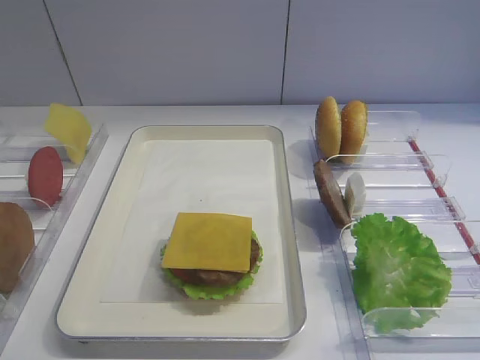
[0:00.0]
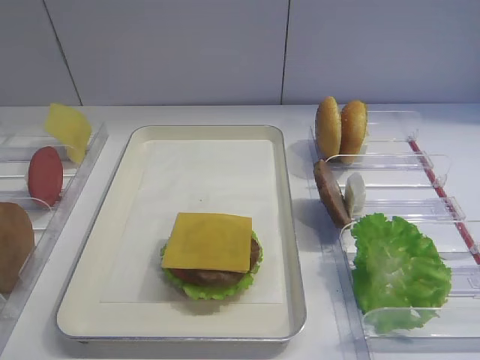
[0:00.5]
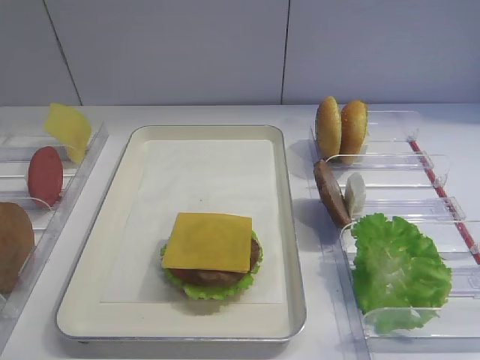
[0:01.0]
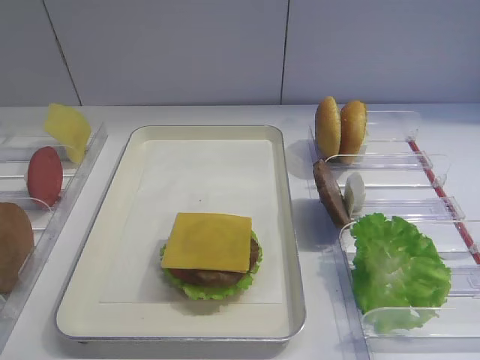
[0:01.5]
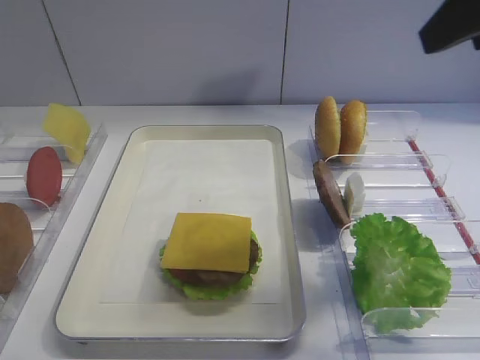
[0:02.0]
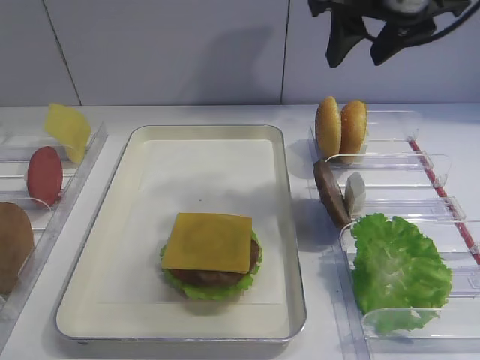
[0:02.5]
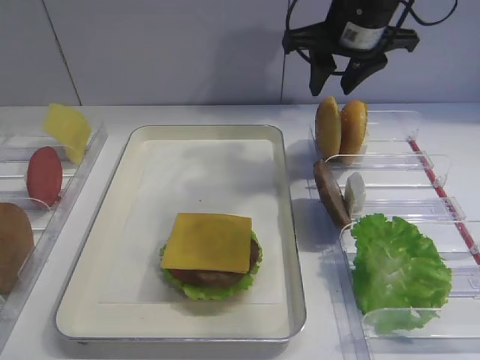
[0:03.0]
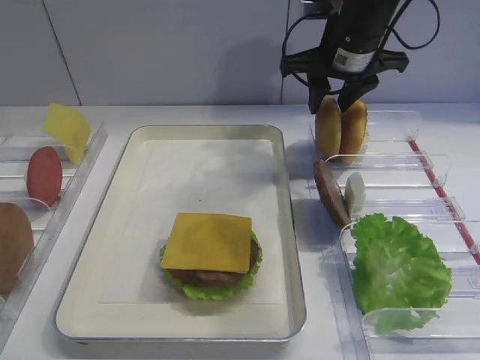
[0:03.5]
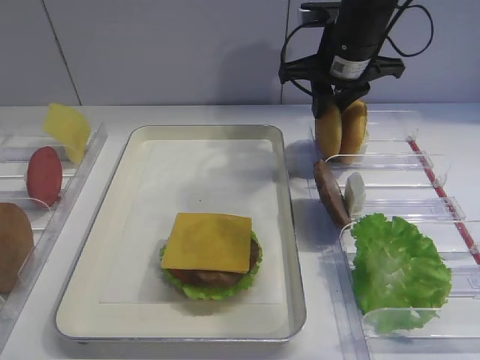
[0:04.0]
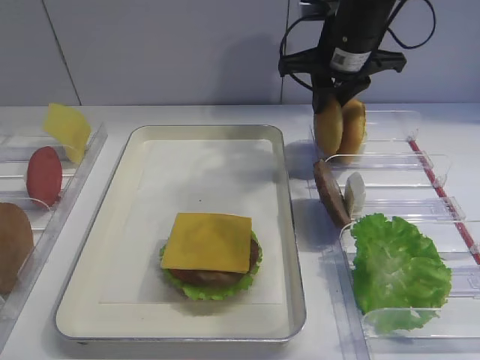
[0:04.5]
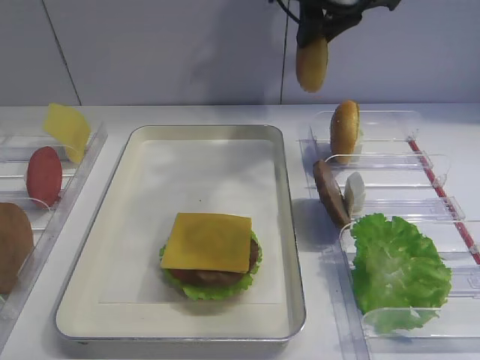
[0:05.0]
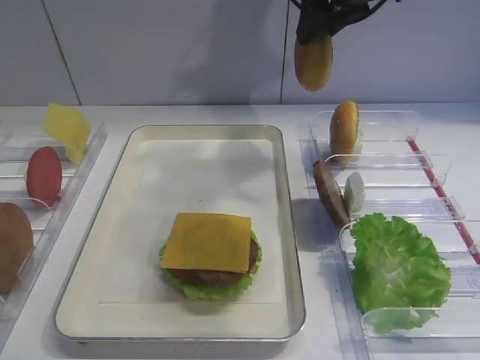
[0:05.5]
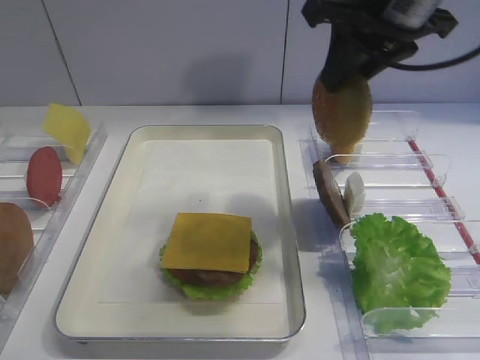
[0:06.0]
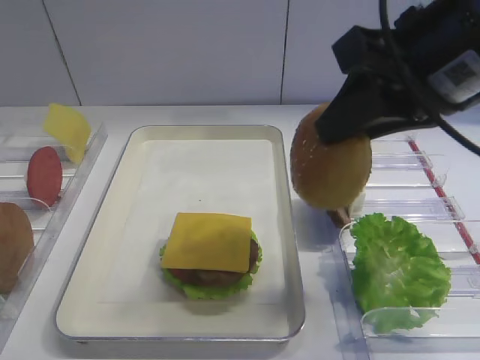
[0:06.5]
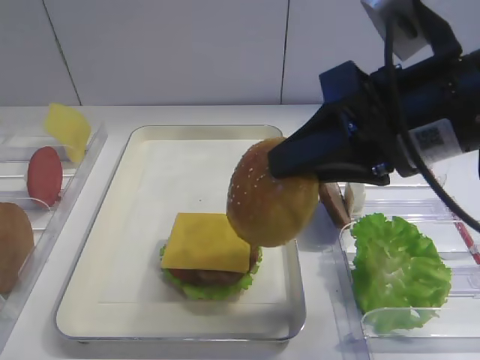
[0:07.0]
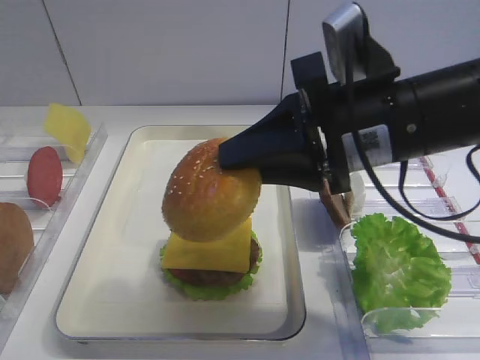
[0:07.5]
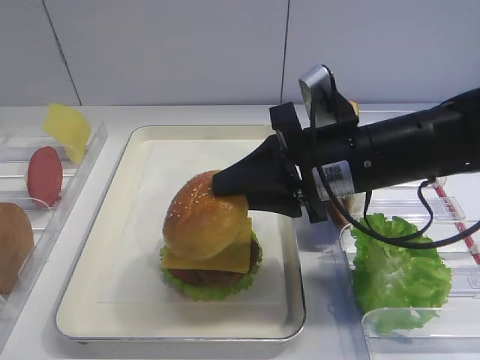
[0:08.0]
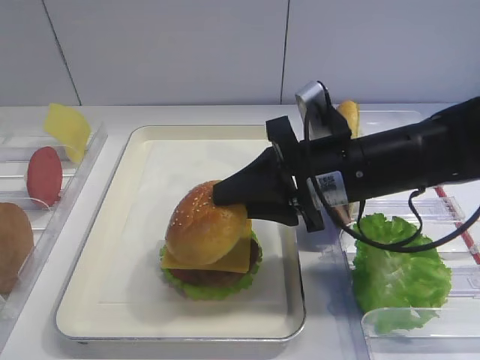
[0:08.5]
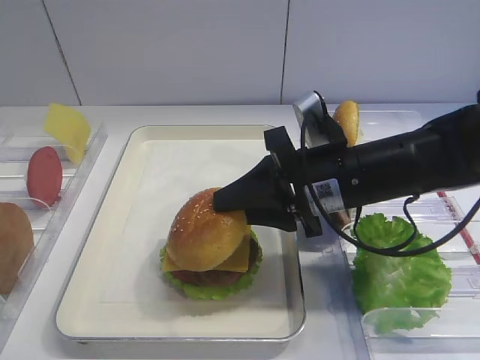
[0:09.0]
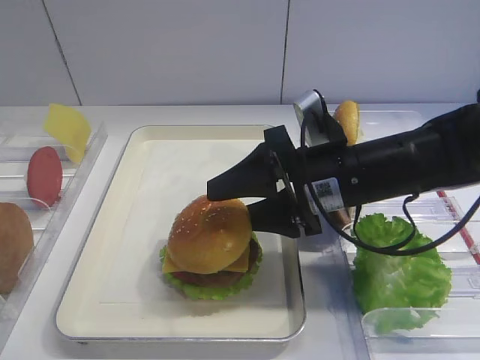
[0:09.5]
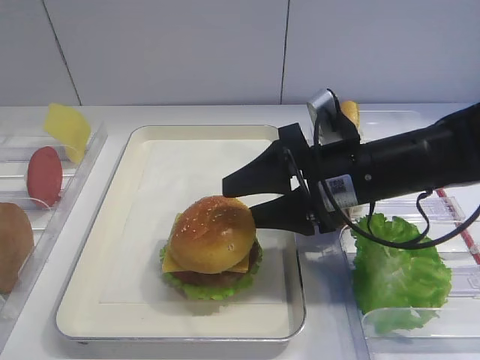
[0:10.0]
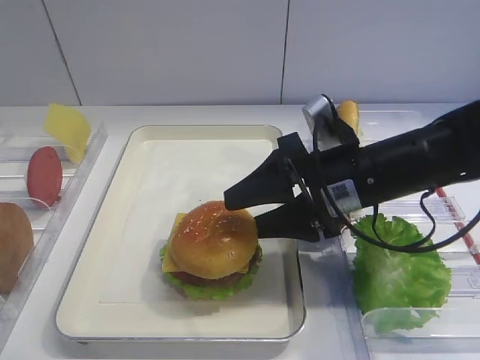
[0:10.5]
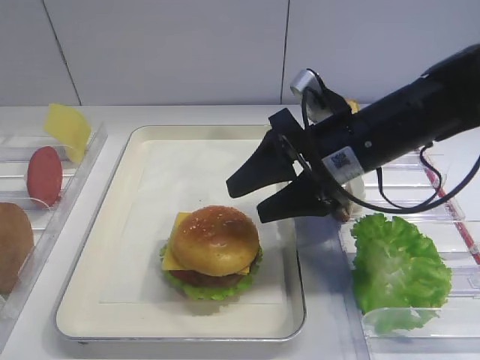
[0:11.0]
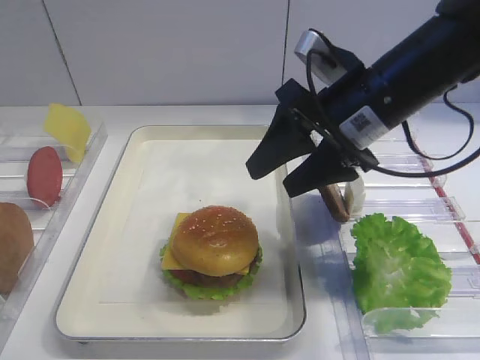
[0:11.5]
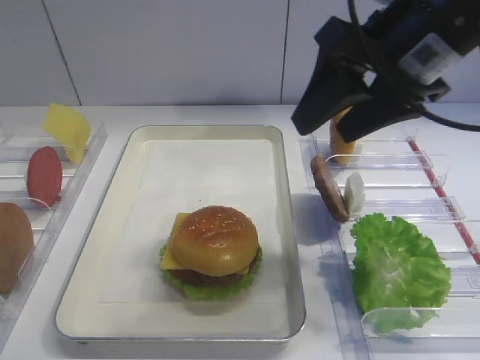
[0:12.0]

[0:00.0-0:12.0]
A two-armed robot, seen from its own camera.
Step, 0:00.0 to 0:04.5: Pick up the hamburger lid with the right gripper.
Step, 0:05.0 to 0:11.0: Place the hamburger lid on the cheese slice with the right gripper.
0:02.0 to 0:04.0: The right gripper travels forward and downward by approximately 25 cm, and closes up.
0:04.0 to 0:06.0: The right gripper heads backward and upward, covering approximately 15 cm.
0:06.0 to 0:08.0: The right gripper goes roughly 15 cm downward.
0:08.0 to 0:10.0: The right gripper opens its fingers.
0:10.0 to 0:12.0: The right gripper goes some 15 cm upward.

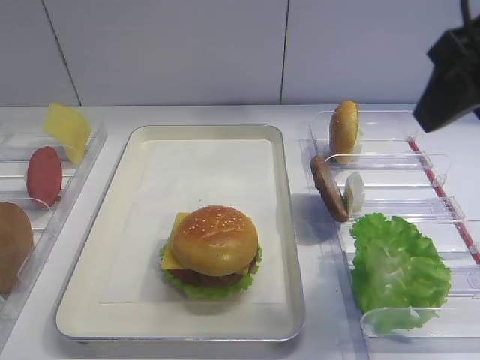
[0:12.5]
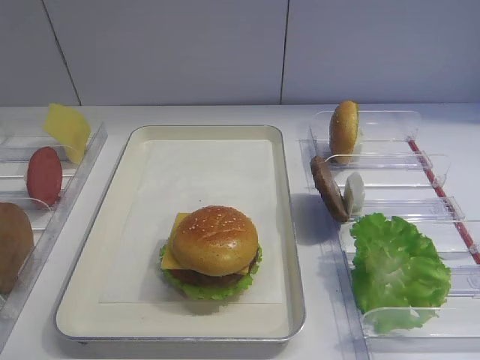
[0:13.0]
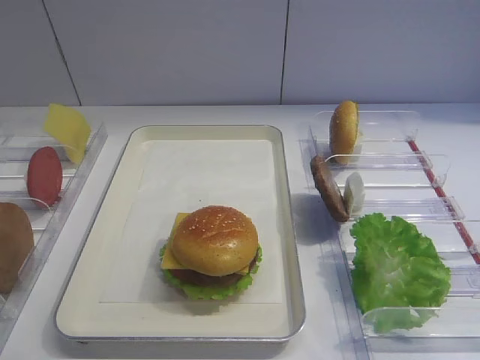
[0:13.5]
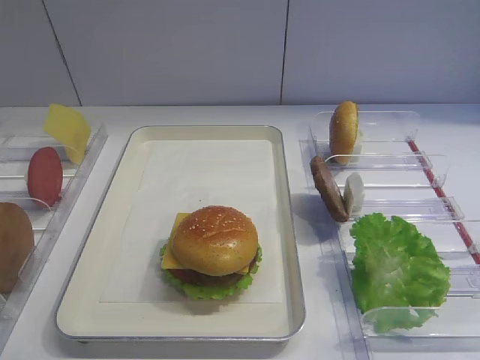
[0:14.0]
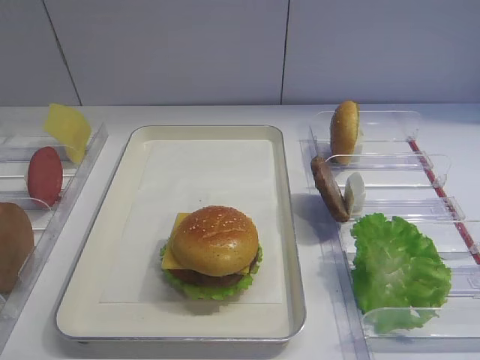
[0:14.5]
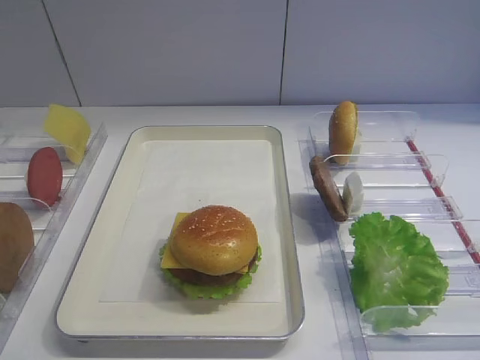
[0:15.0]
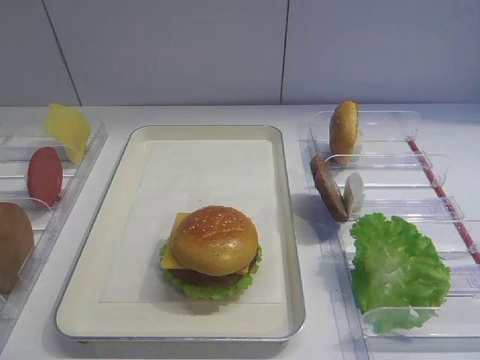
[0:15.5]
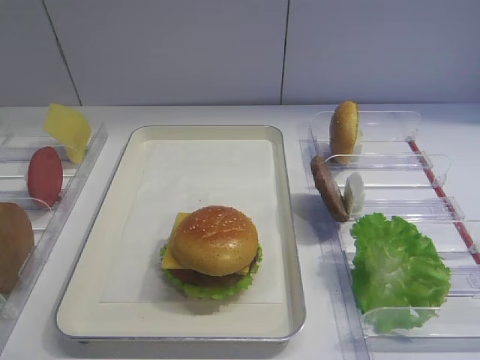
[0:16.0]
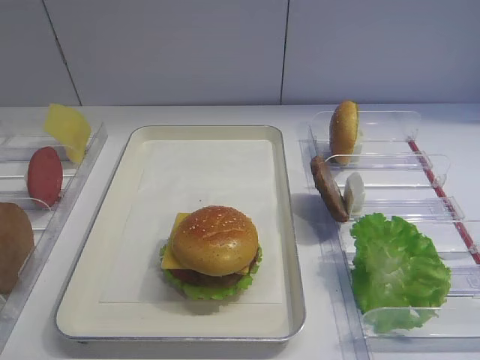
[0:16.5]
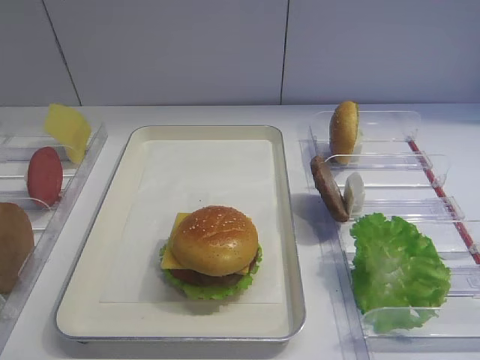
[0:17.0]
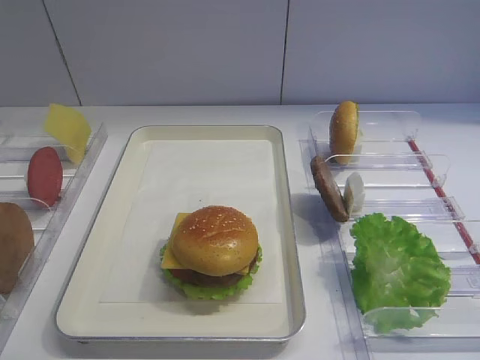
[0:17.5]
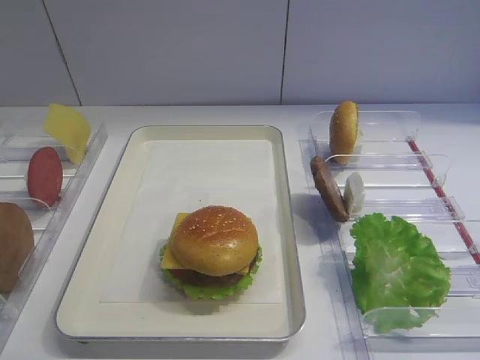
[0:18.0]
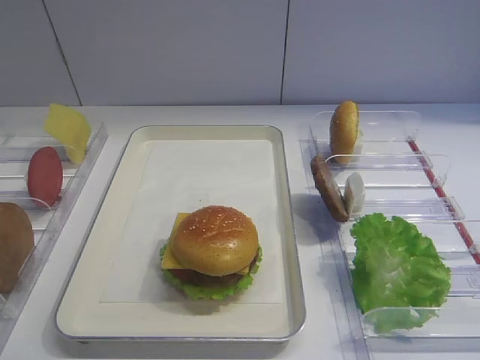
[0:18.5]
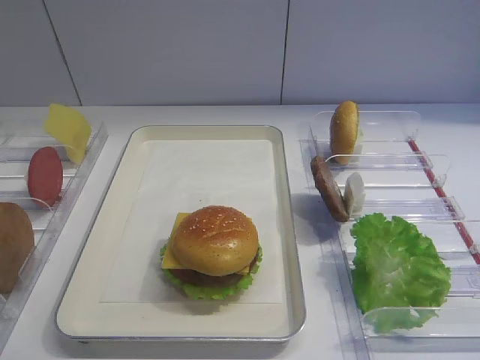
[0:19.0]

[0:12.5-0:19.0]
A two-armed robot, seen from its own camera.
0:12.5 to 0:14.5: The right gripper moves backward and downward, approximately 25 cm.

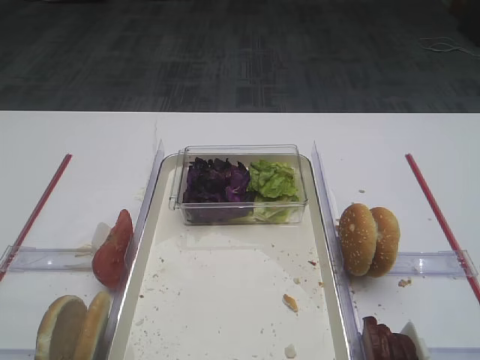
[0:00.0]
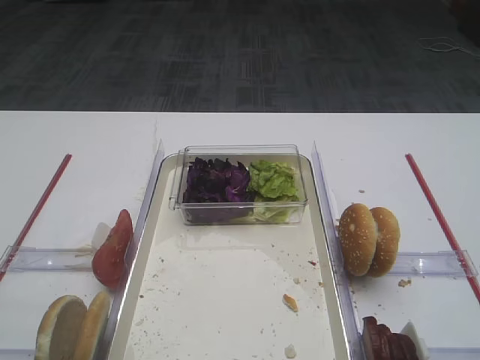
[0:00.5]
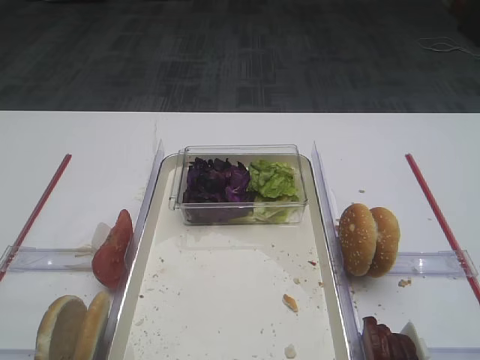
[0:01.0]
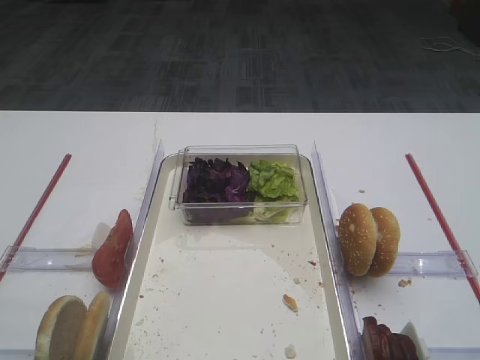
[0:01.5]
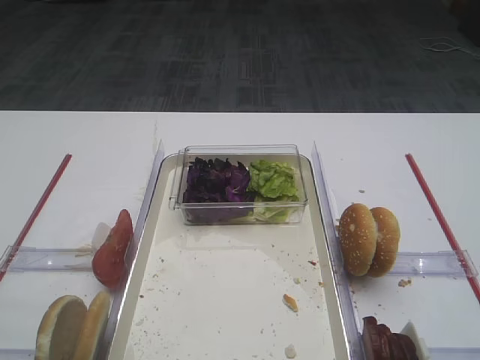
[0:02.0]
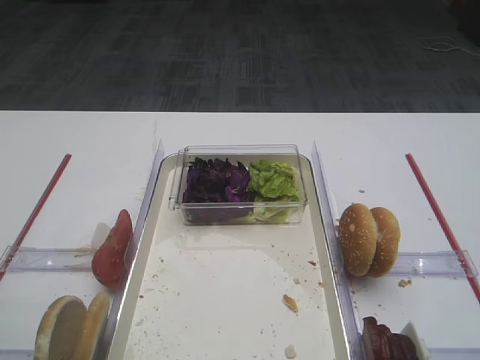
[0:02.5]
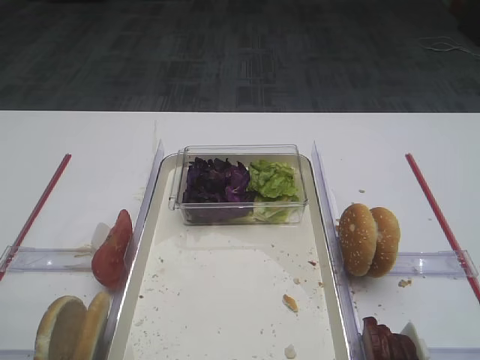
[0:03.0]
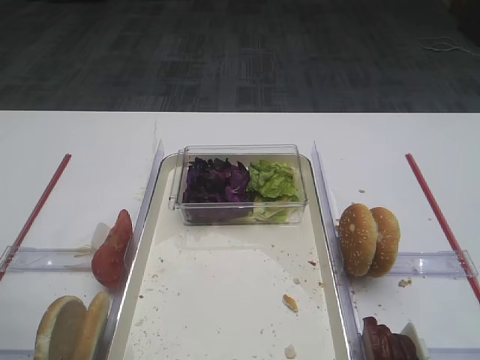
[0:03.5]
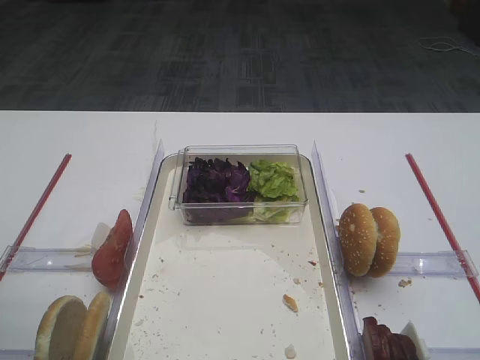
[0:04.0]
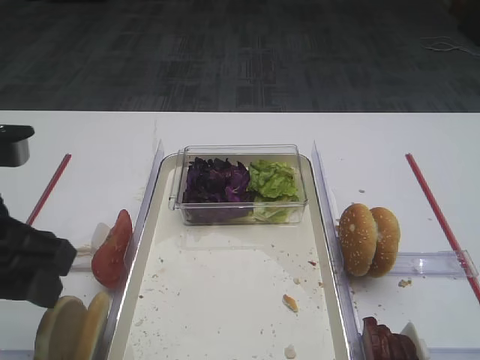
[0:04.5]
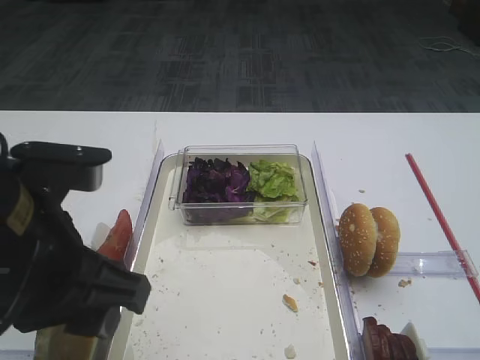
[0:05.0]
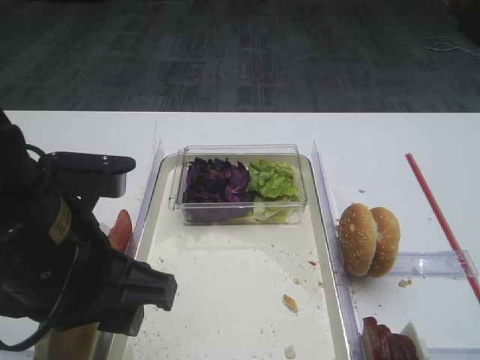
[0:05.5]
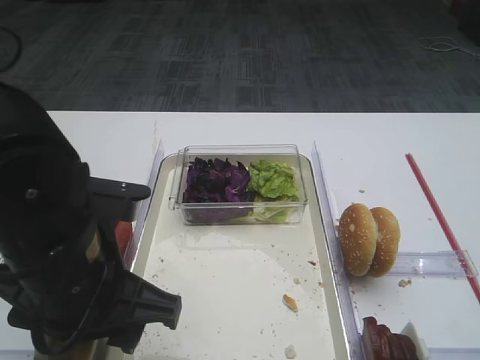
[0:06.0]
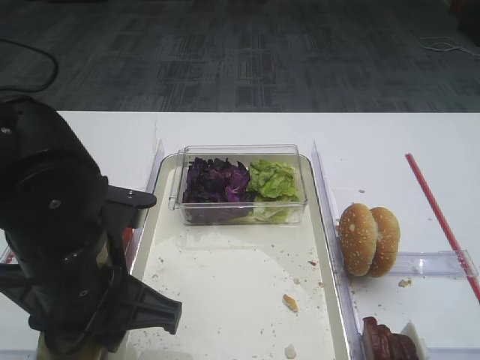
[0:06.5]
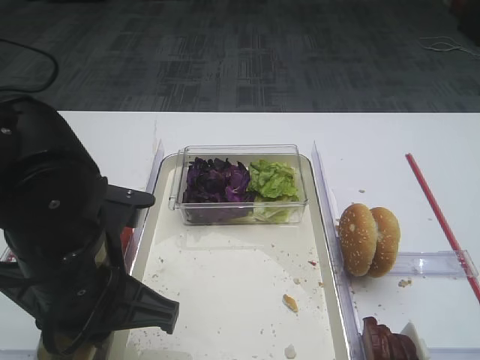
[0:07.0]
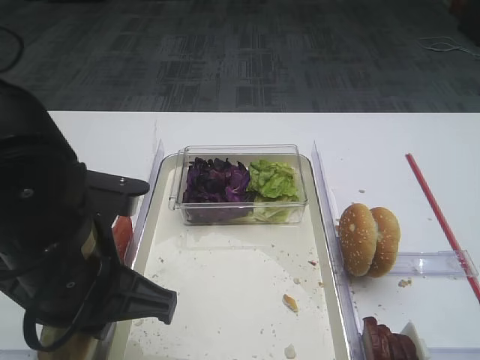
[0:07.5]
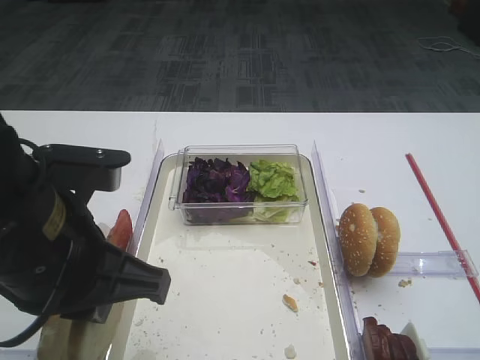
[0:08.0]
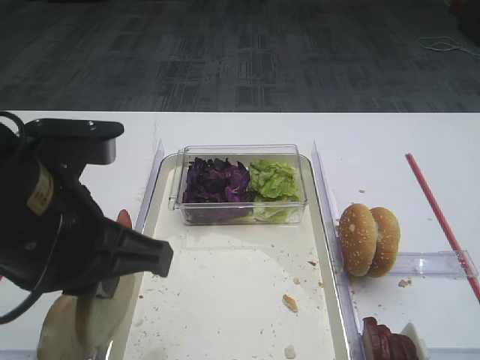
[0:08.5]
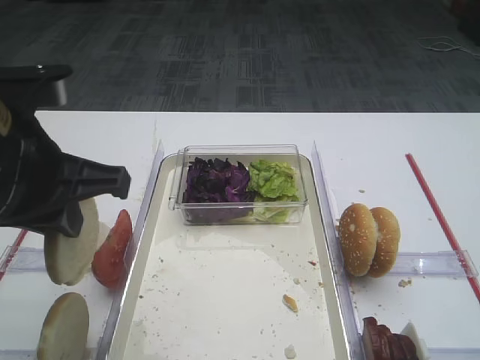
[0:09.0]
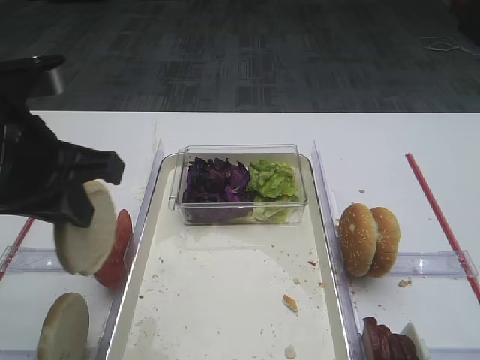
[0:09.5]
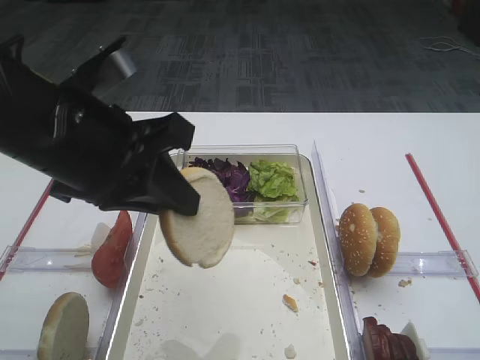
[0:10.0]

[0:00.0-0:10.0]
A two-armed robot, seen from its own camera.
Step, 0:00.0 to 0:08.5: Pick up the bread slice with the left gripper.
0:04.0 to 0:06.0: The left gripper shifts approximately 15 cm to the right.
0:06.0 to 0:08.0: The left gripper closes up.
0:08.0 to 0:10.0: The left gripper goes some 5 cm forward.
